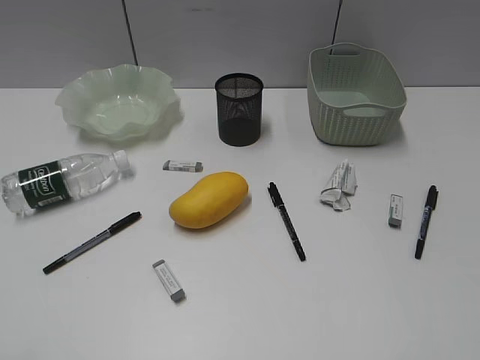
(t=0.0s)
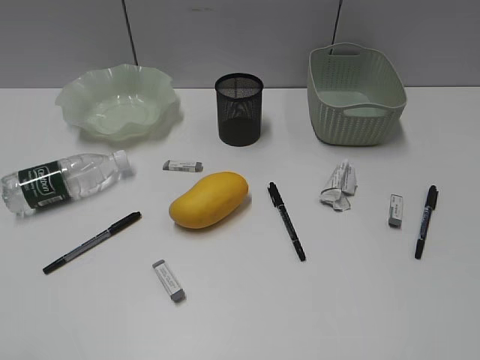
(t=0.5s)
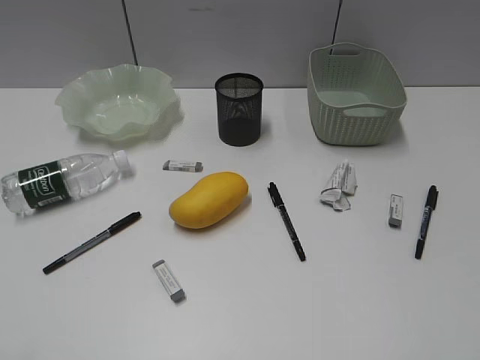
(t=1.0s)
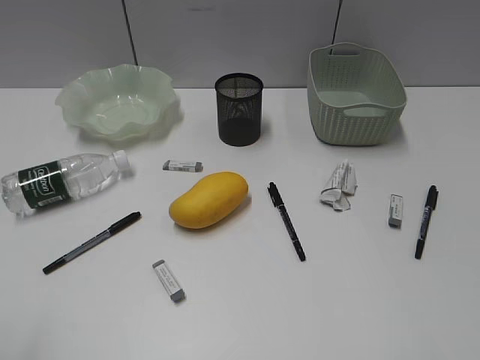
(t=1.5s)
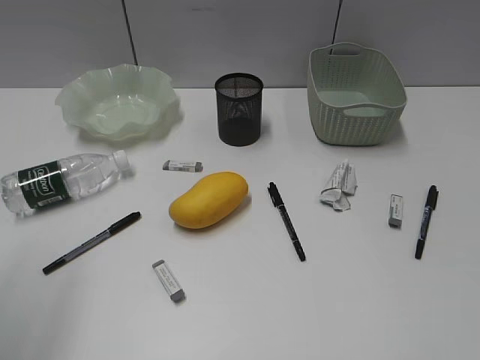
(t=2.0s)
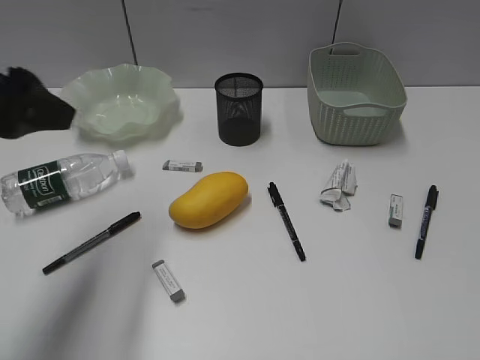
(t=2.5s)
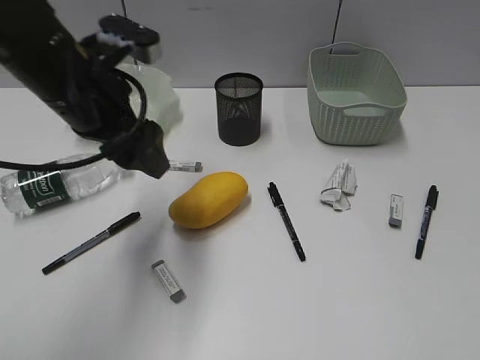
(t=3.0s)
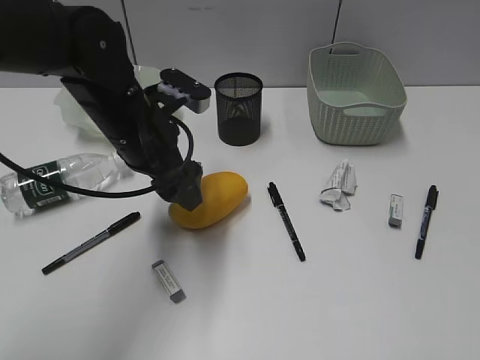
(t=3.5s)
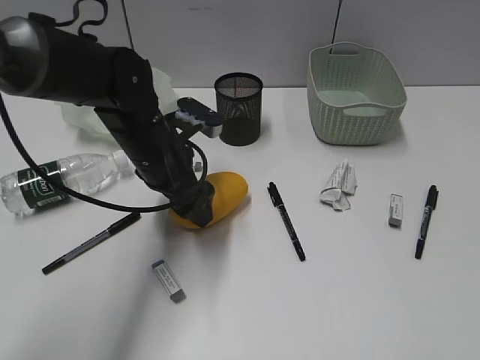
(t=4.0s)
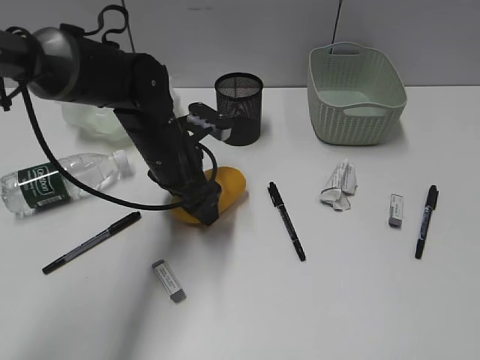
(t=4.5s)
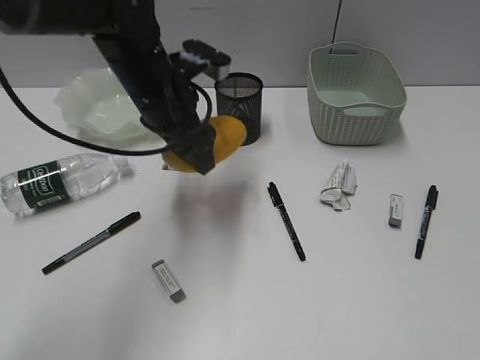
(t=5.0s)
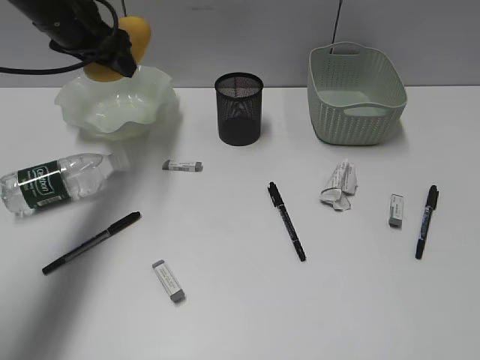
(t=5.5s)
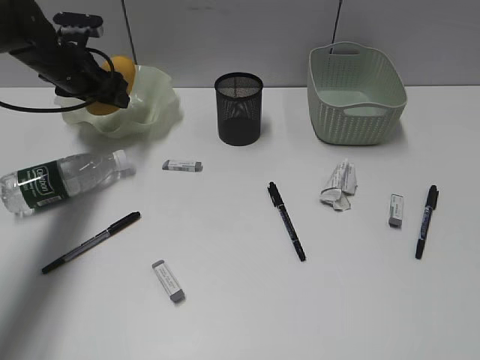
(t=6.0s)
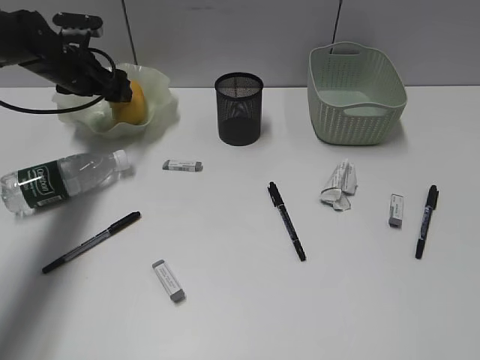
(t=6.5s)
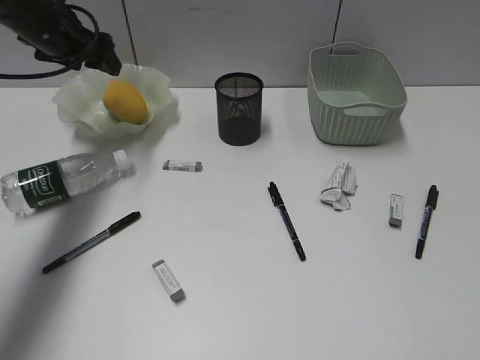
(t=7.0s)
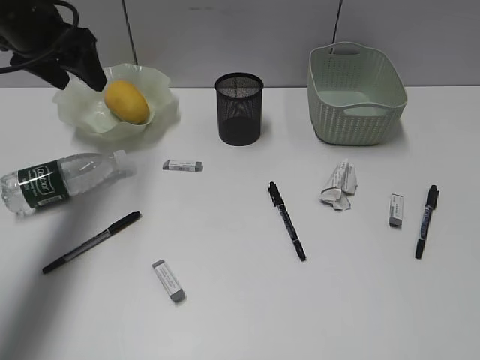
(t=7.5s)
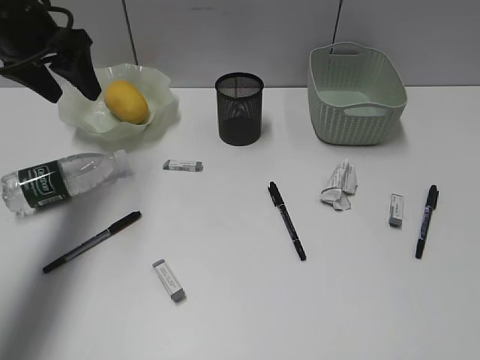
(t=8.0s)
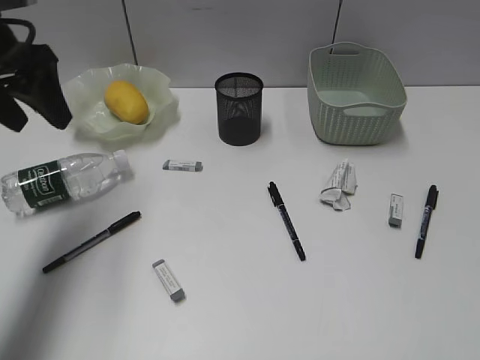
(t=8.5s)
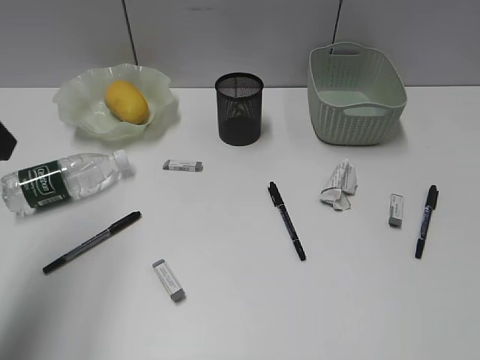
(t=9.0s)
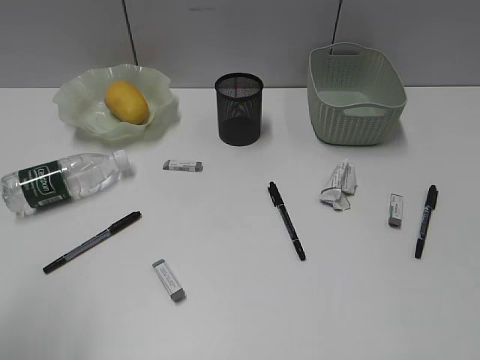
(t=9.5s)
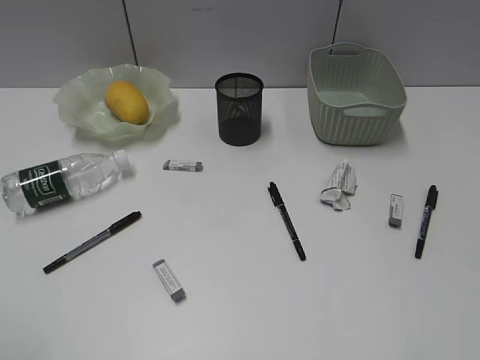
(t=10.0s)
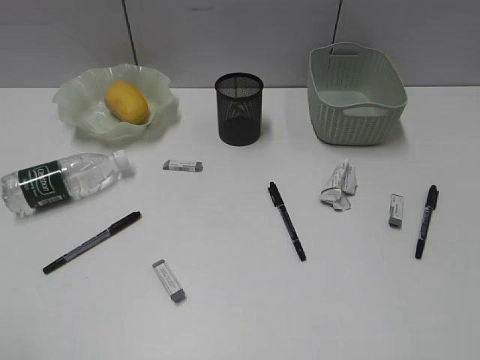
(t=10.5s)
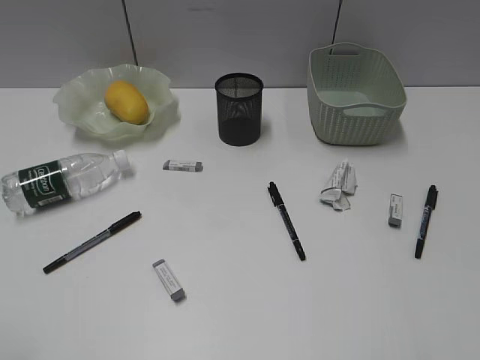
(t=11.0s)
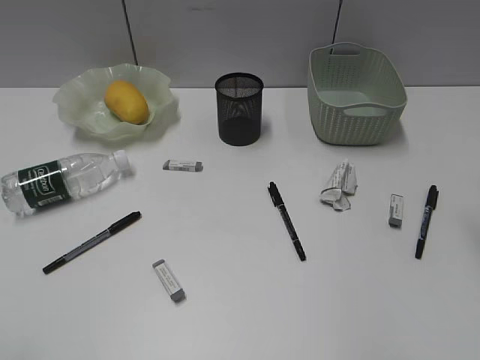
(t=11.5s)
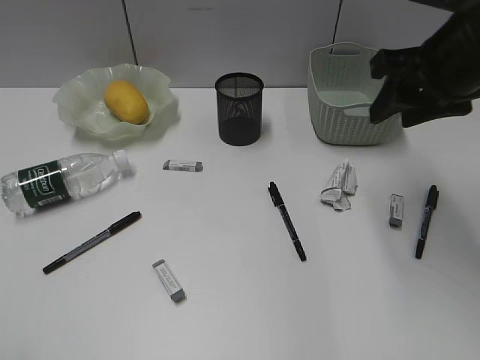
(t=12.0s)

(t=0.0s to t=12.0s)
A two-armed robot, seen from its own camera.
Step, t=2.5s - t=4.5s: Grasp the mango with left gripper.
Step, t=5.0s - t=6.5s: Place the mango in the plate with left gripper.
t=2.0s - t=4.0s: The left gripper goes some 35 cm forward, to the right and downward.
t=4.0s - t=6.0s: The left gripper moves forward and to the left, about 20 cm.
t=6.0s - t=8.0s: The left gripper heads upward and backward, covering roughly 15 cm.
t=8.0s - t=10.0s: The left gripper travels backward by approximately 40 cm.
t=10.0s - t=12.0s: The right gripper shifts roughly 30 cm forward.

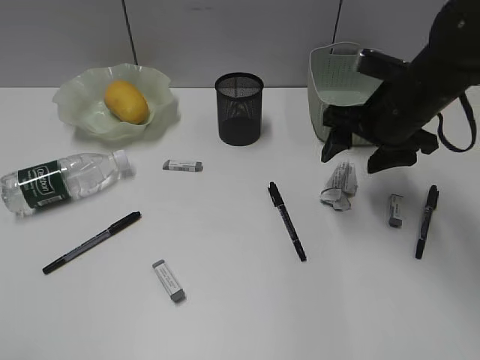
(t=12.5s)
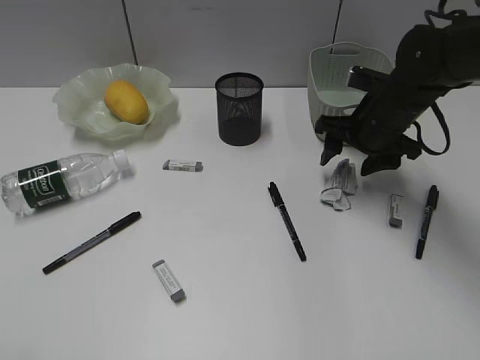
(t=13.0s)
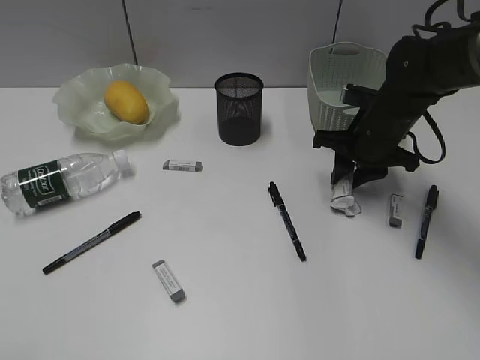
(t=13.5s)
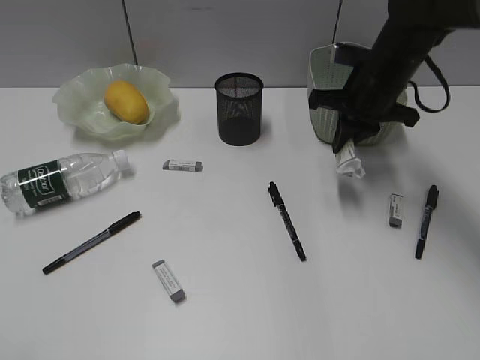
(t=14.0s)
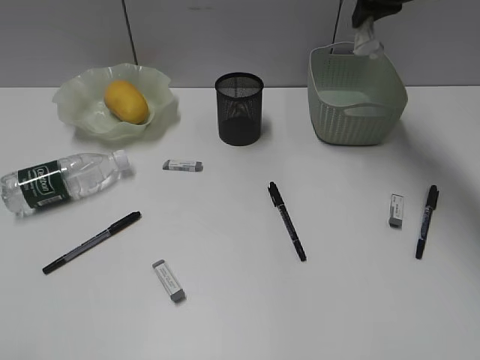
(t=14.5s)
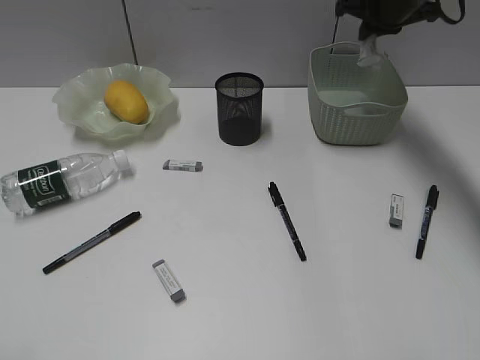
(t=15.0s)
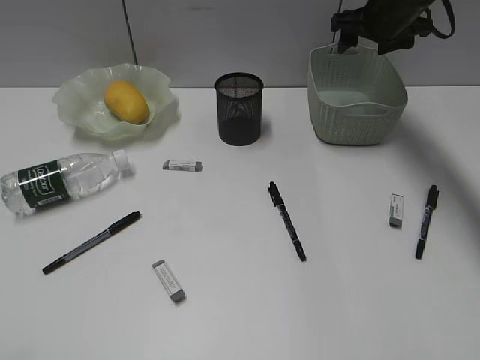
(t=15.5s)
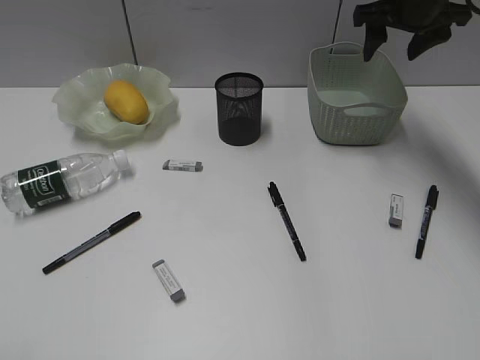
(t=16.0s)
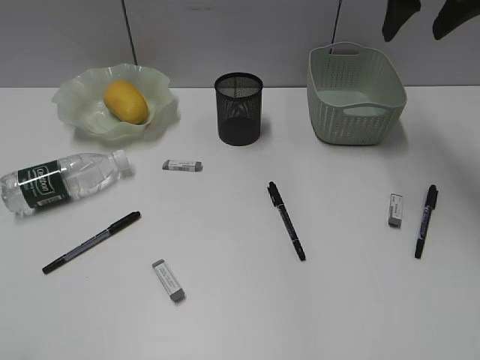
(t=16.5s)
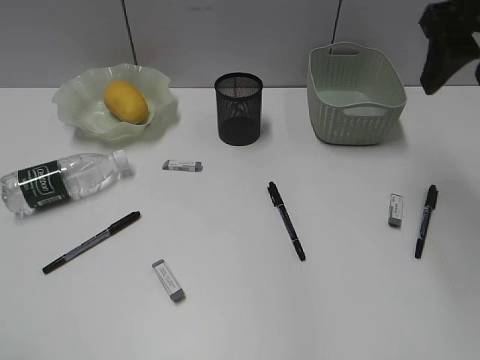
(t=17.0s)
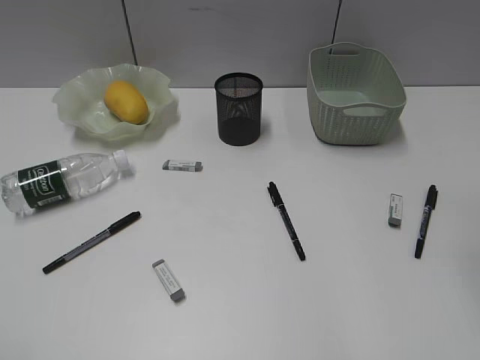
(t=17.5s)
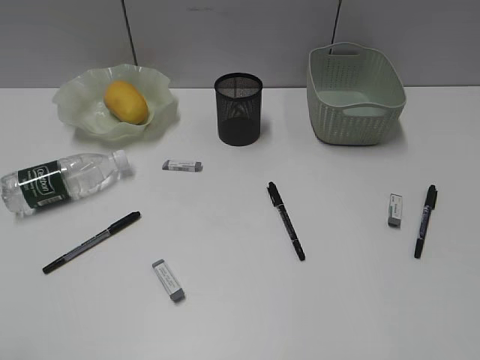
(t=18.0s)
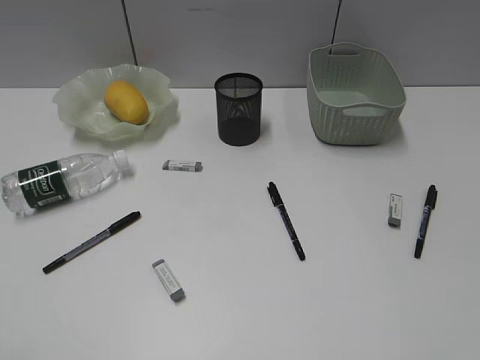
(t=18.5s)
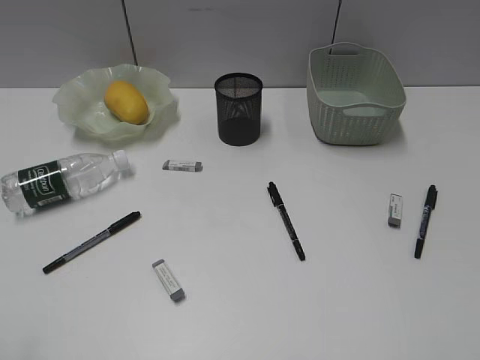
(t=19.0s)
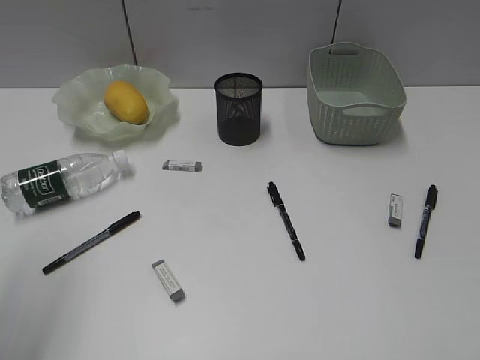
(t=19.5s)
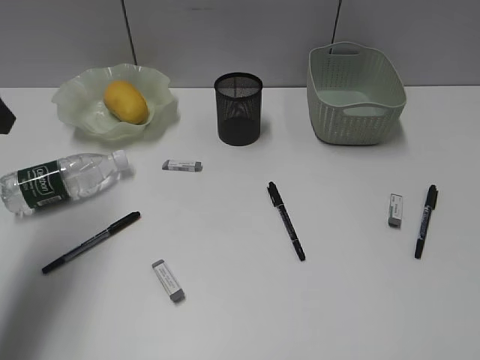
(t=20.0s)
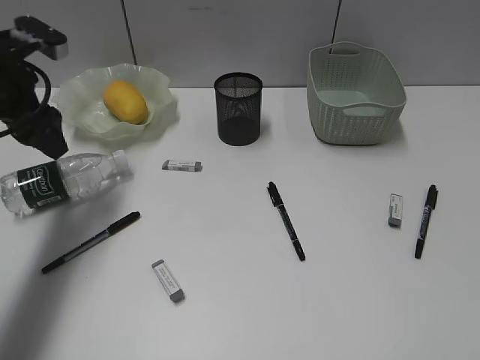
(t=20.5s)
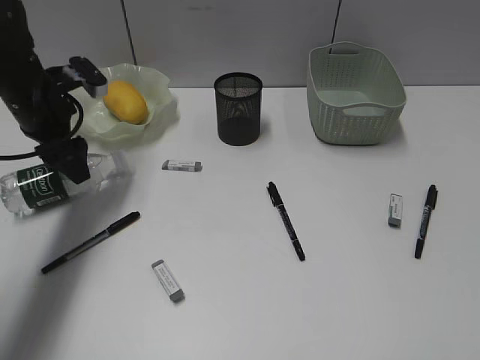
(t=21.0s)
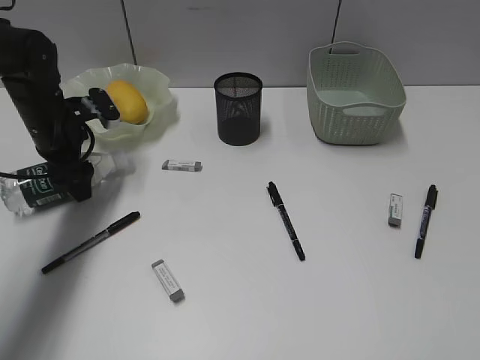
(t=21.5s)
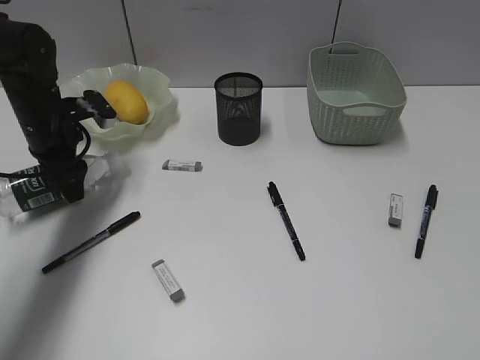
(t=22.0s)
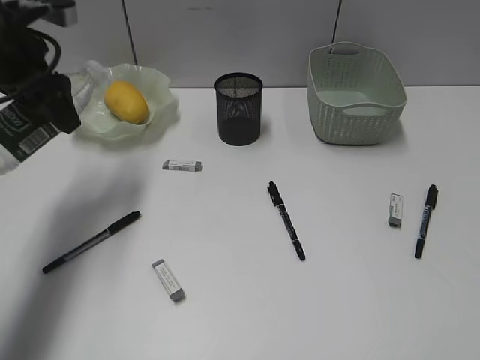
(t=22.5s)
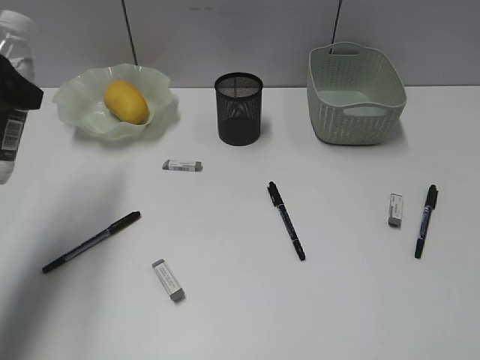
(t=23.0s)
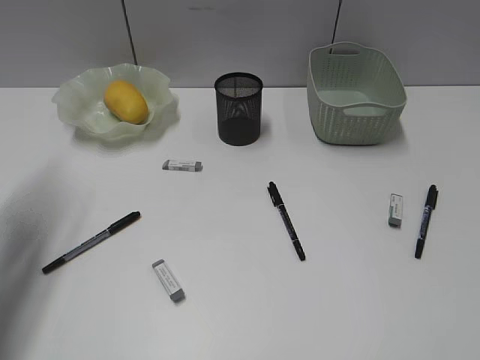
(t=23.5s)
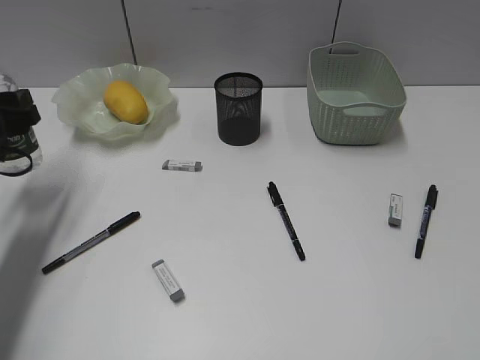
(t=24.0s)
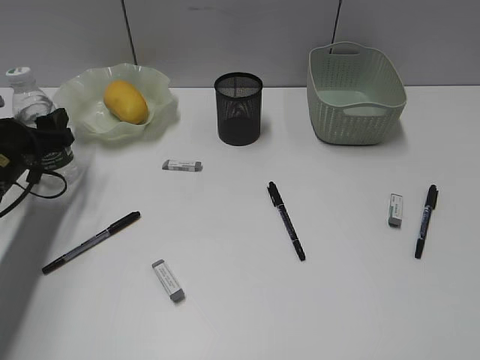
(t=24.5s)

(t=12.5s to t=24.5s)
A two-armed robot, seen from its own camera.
Step, t=14.0s - t=15.0s: Place the waste paper in the basket with right gripper.
Step, t=15.5s - t=21.5s: Grasp the bottle with left gripper.
t=12.5s - t=14.5s: The right gripper heads upward and forward, covering roughly 15 cm, and closes.
t=14.5s - t=16.5s: The right gripper travels backward by about 5 cm, goes downward and returns, approximately 5 cm each way, and opens its fingers.
t=16.5s - t=18.5s: The right gripper shifts some 40 cm backward.
t=18.5s - t=20.5s: The left gripper travels forward by roughly 35 cm.
t=20.5s - t=22.5s: The left gripper reaches about 10 cm downward, then returns.
t=22.5s - t=24.5s: The left gripper travels downward by approximately 15 cm.

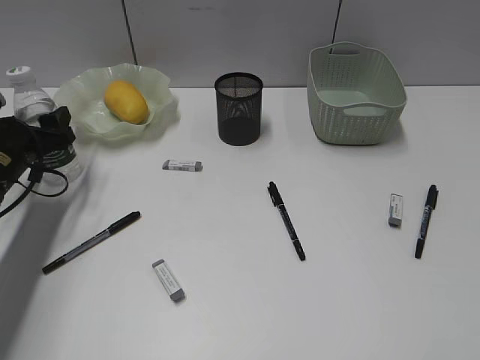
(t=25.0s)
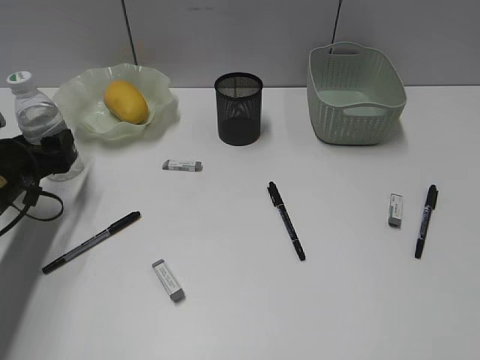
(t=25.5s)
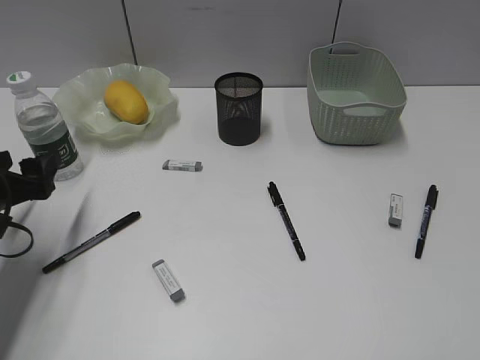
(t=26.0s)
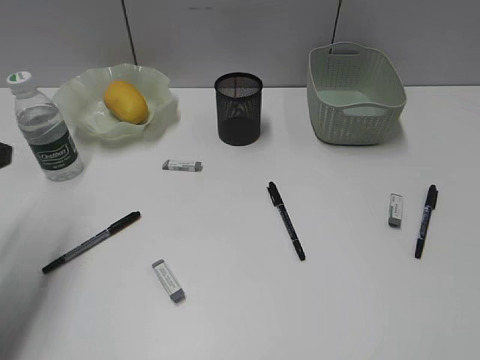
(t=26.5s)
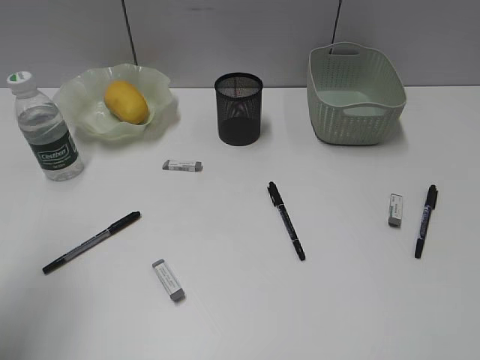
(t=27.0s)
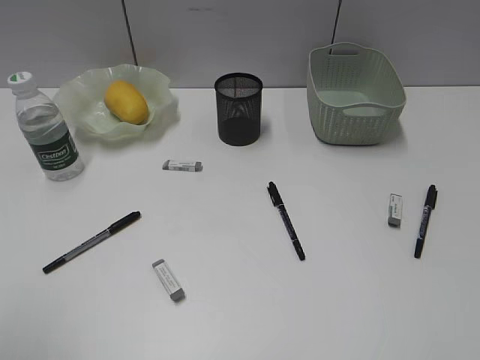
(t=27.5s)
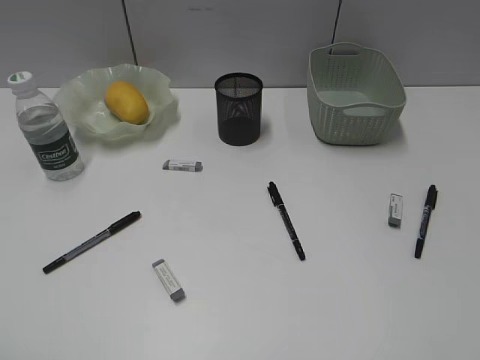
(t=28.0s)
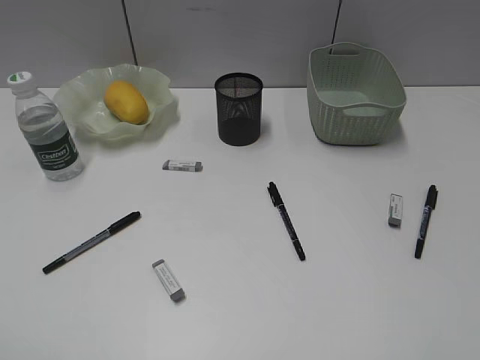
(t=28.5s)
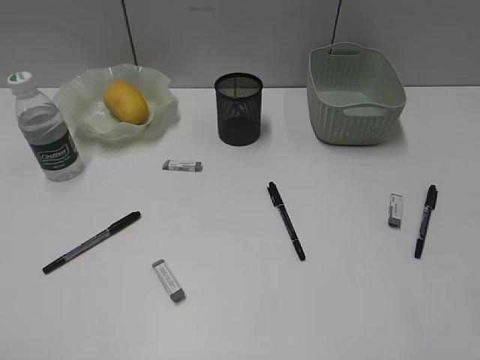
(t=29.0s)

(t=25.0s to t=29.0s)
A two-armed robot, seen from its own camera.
t=25.0s - t=27.0s: The left gripper is displaced backward and upward by roughly 25 cm.
t=27.0s - t=29.0s: The left gripper shifts approximately 15 cm backward.
